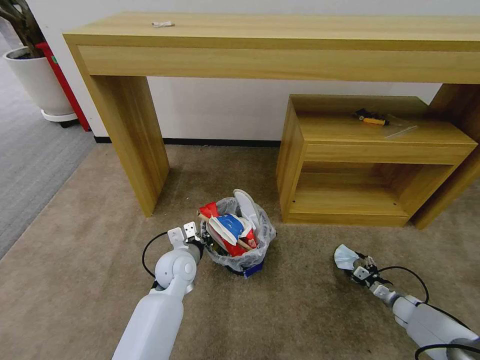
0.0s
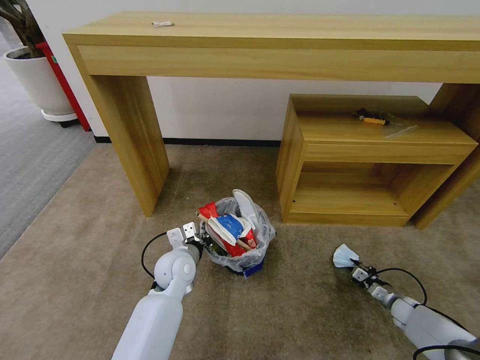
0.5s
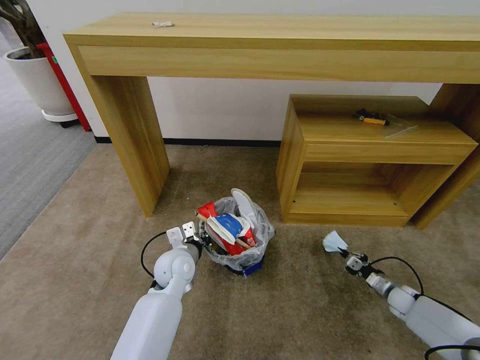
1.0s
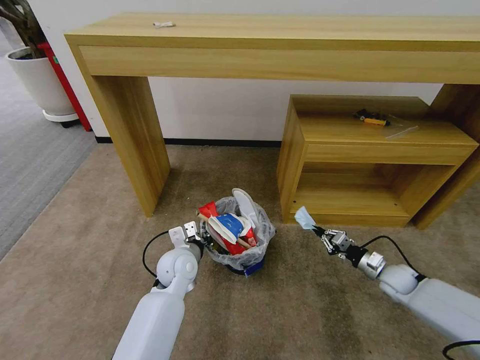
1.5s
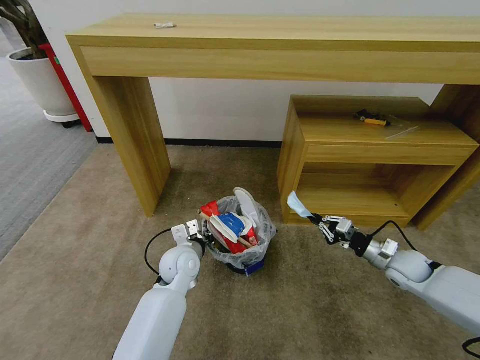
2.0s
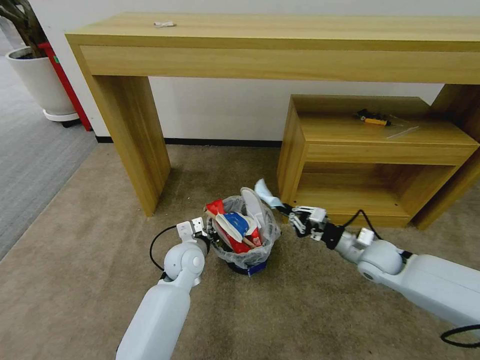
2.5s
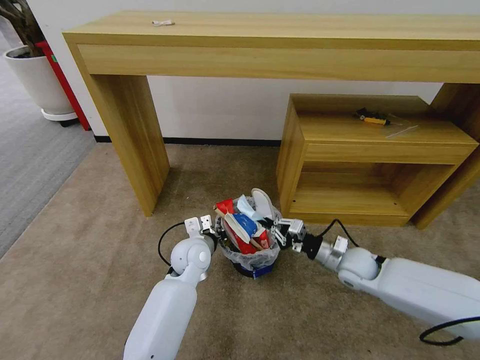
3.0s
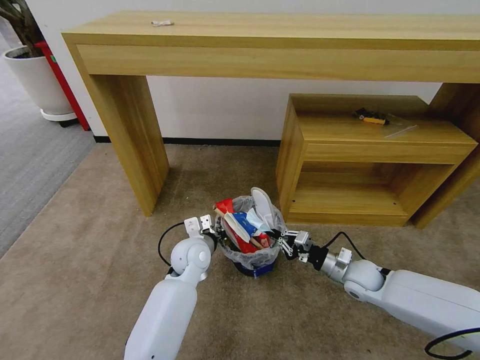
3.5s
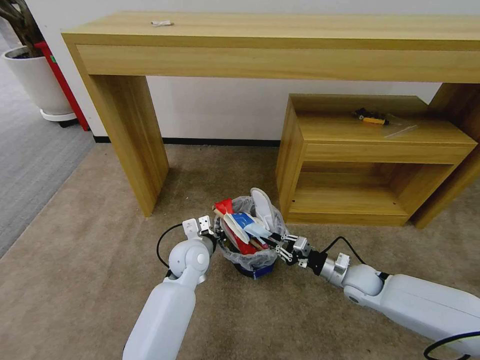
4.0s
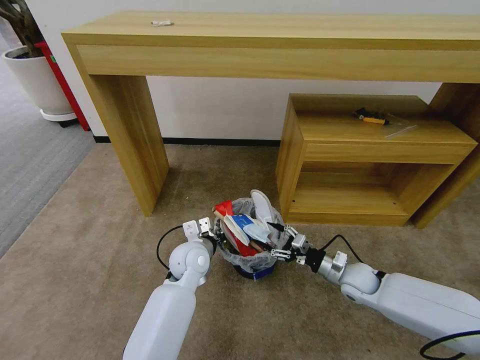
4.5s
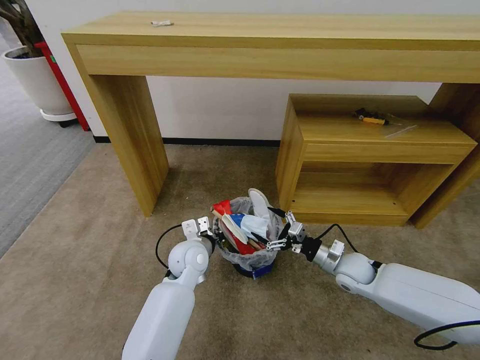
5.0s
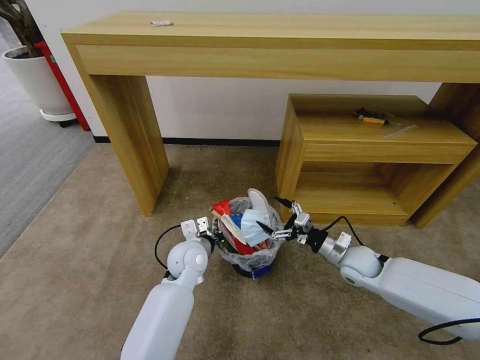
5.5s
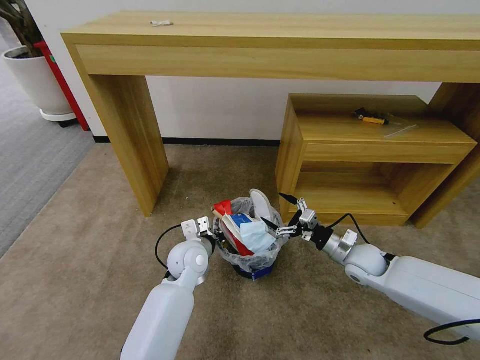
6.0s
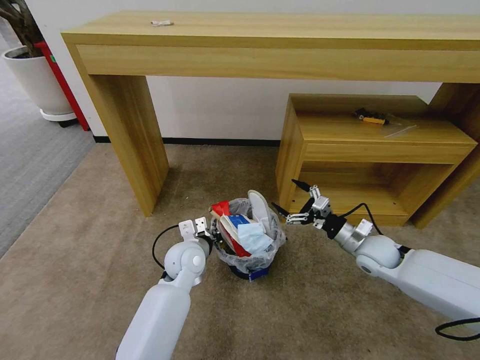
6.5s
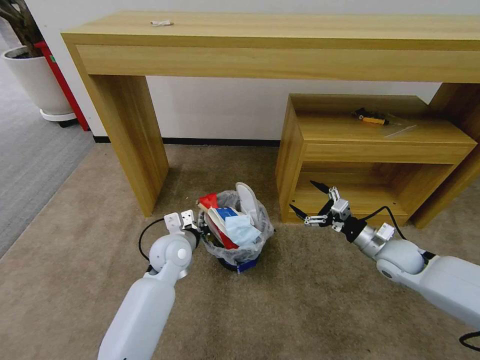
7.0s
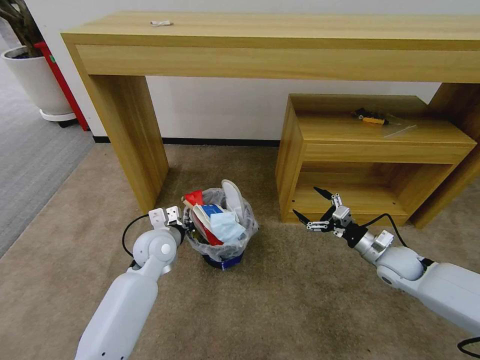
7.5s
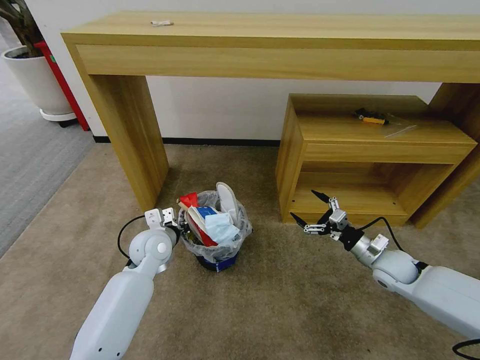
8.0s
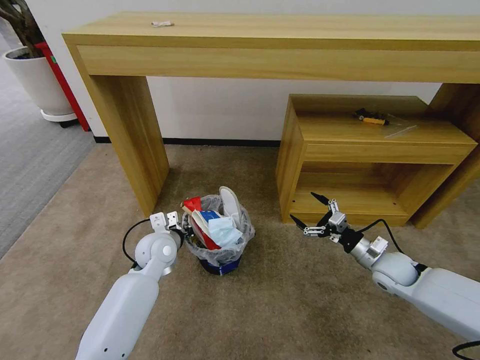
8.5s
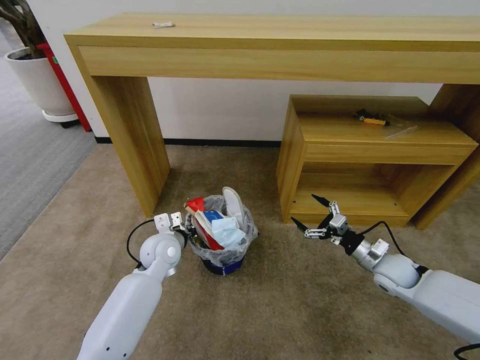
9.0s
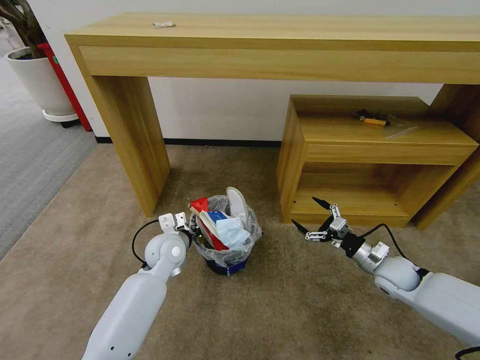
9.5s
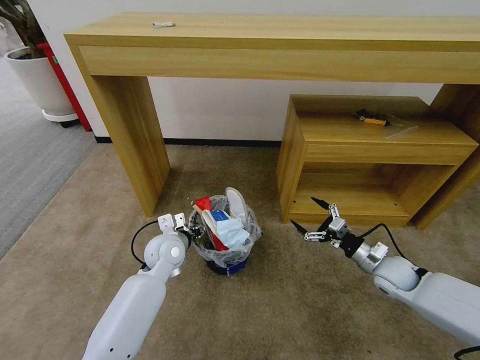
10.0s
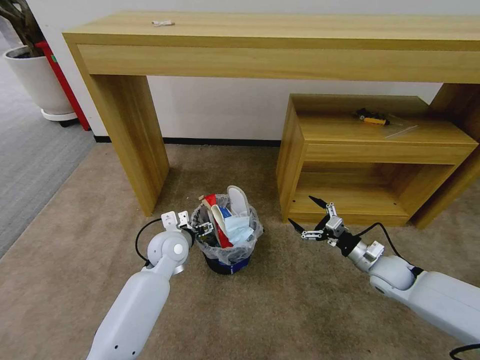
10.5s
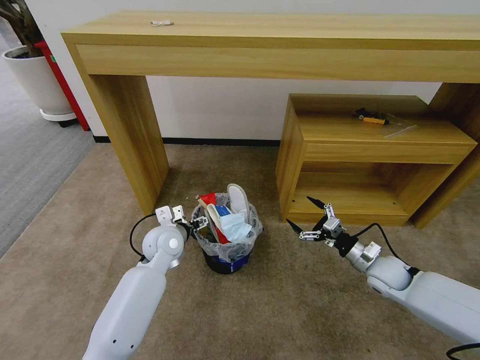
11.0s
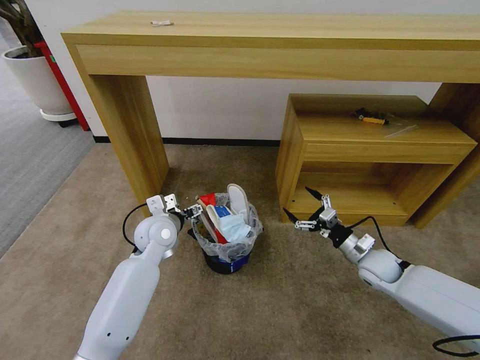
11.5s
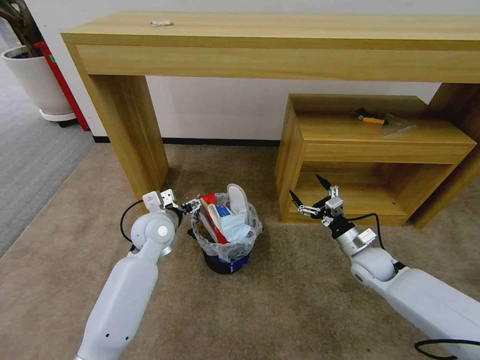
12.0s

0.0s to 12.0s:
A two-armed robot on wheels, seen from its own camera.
Task of the whole recording: Pick up the trash bin and place the garbage on the floor into it.
0.0s to 2.0s: The right gripper moves upward and to the left, some 20 cm, and closes.
2.0s to 4.0s: The right gripper heads to the left, covering some 10 cm.
4.0s to 6.0s: The right gripper shifts approximately 5 cm upward, and opens up.
6.0s to 8.0s: The right gripper heads to the right, covering about 5 cm; the left gripper moves to the left, roughly 10 cm.
8.0s to 10.0s: The left gripper opens.
10.0s to 12.0s: The right gripper goes roughly 5 cm to the left. The left gripper shifts roughly 5 cm upward.

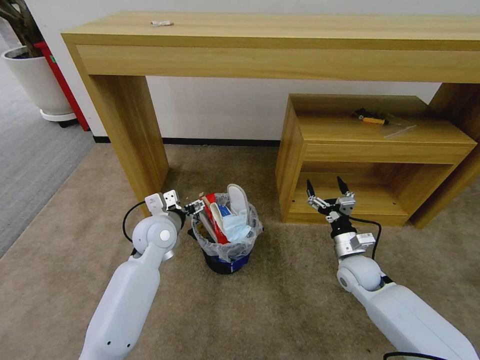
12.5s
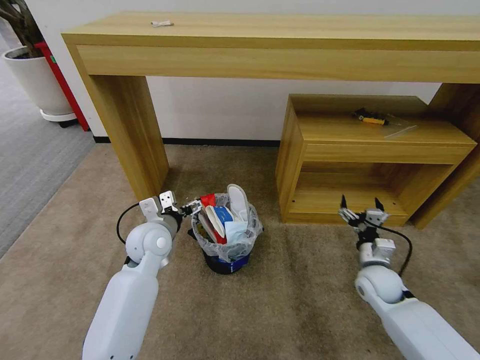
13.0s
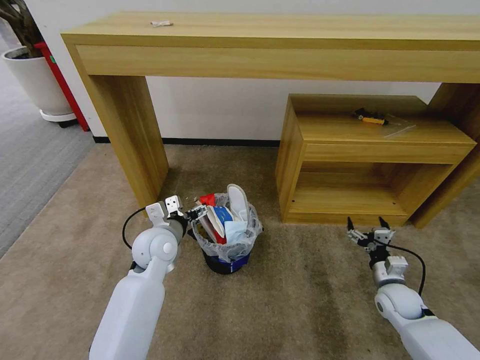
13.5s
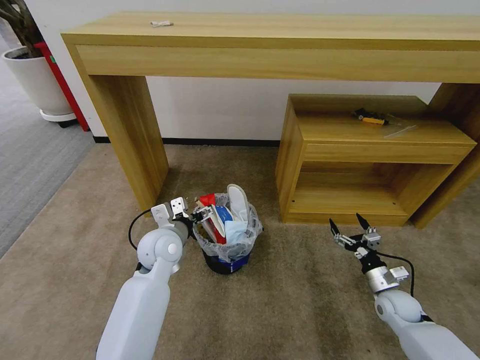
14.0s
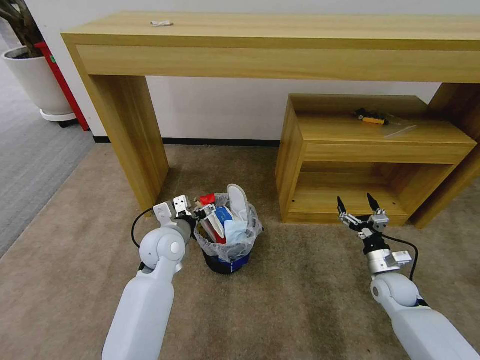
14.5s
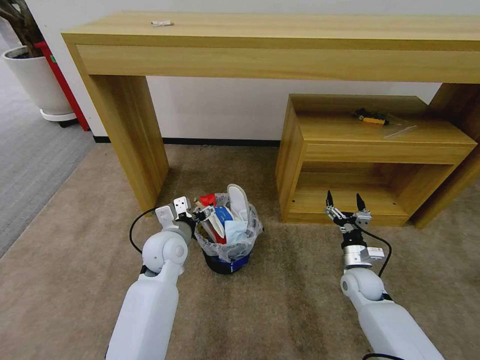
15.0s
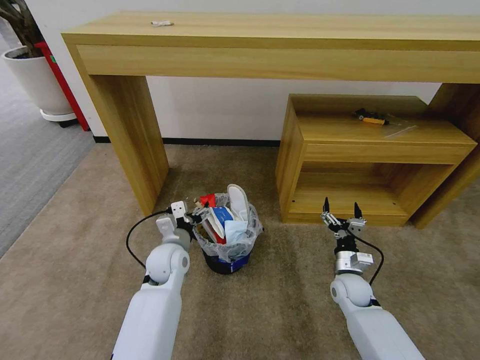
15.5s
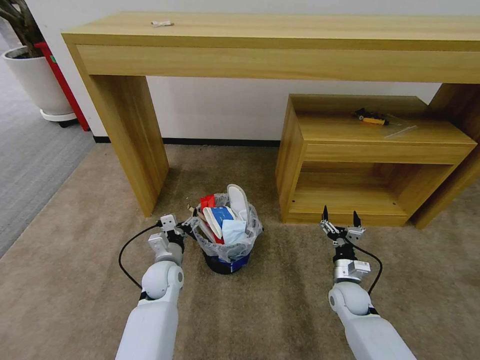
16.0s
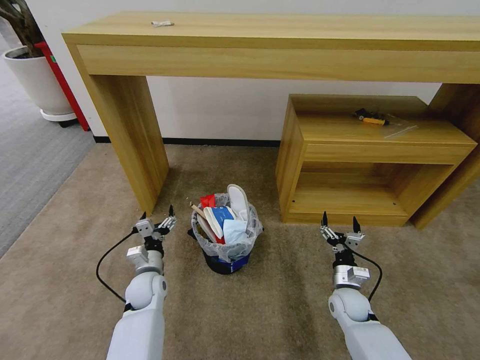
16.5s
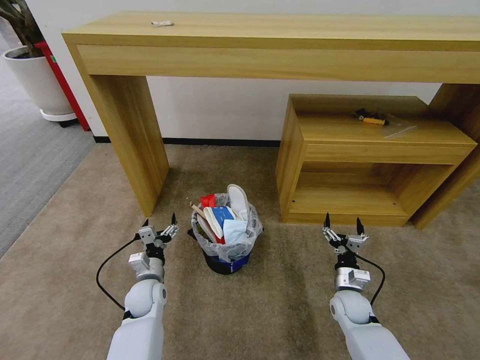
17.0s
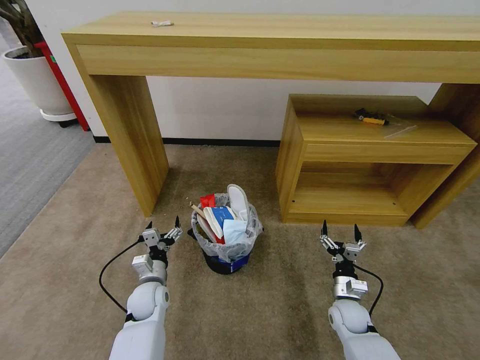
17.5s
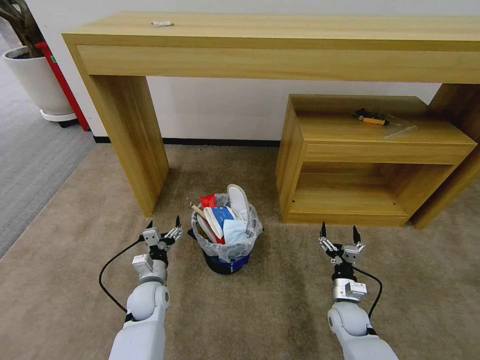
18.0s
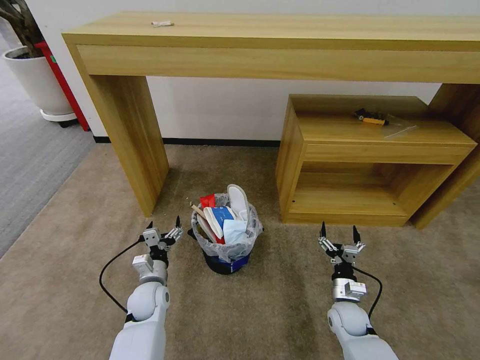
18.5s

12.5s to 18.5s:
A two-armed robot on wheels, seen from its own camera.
Task of the whole recording: Pick up the trash bin and place the garbage on the floor into it.
12.5s to 14.5s: The right gripper heads to the right, covering some 10 cm.
14.5s to 16.5s: The left gripper shifts some 20 cm downward and to the left; the right gripper moves to the left and downward, roughly 10 cm.
16.5s to 18.5s: The grippers stay close to where they were, moving slightly.
